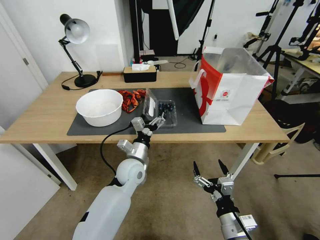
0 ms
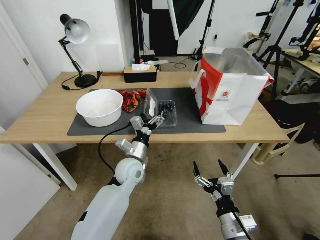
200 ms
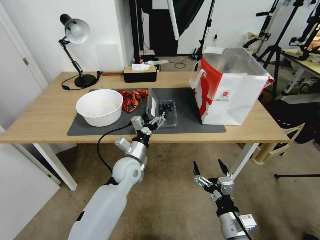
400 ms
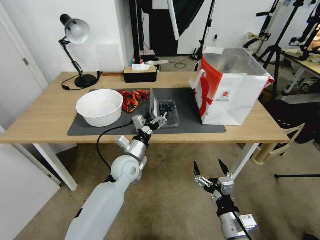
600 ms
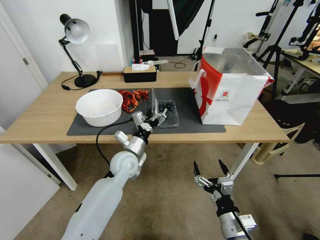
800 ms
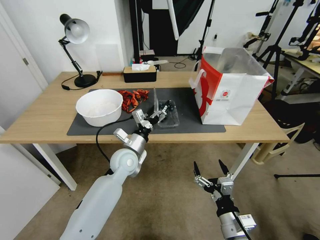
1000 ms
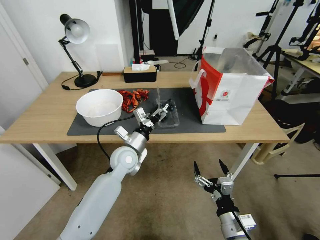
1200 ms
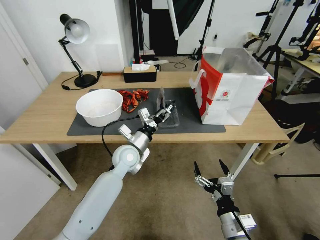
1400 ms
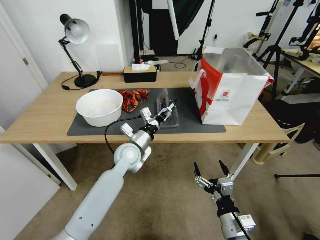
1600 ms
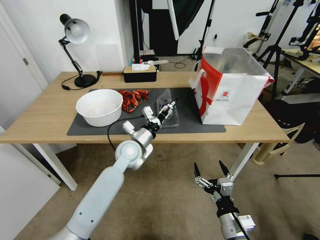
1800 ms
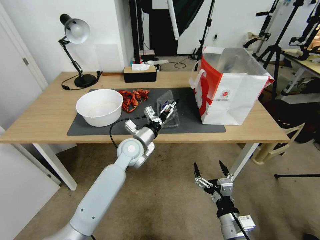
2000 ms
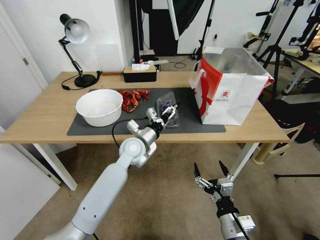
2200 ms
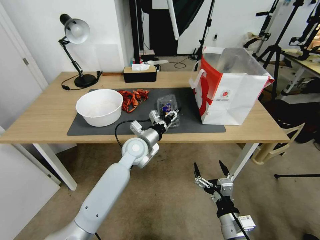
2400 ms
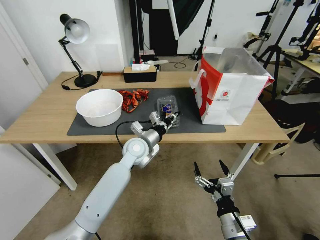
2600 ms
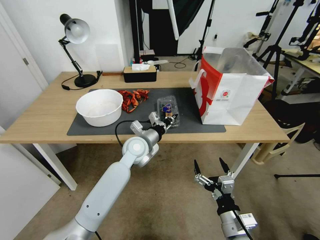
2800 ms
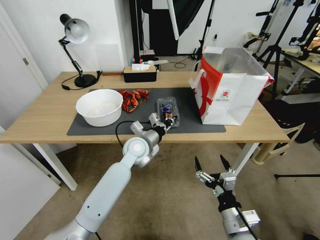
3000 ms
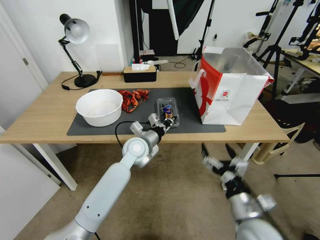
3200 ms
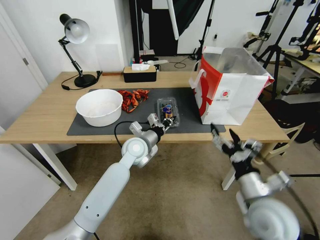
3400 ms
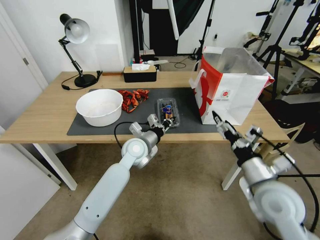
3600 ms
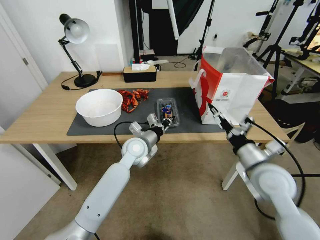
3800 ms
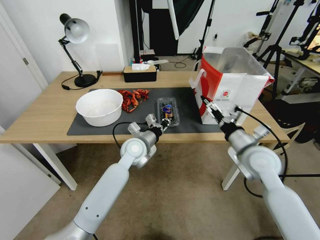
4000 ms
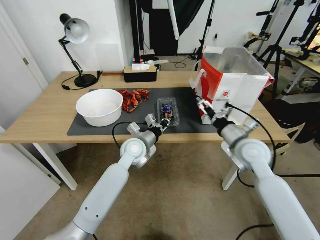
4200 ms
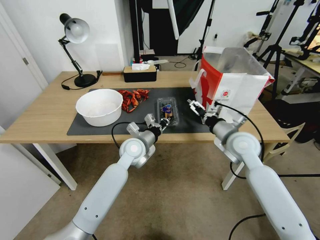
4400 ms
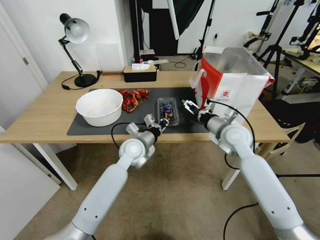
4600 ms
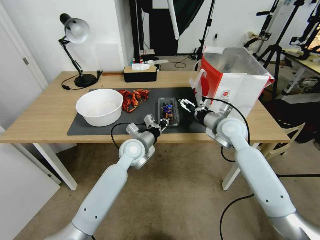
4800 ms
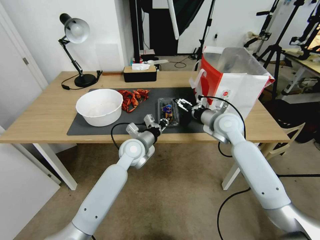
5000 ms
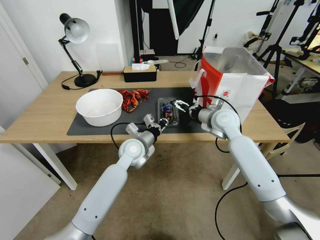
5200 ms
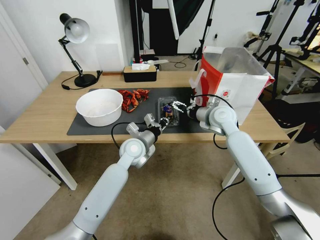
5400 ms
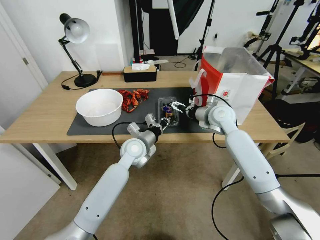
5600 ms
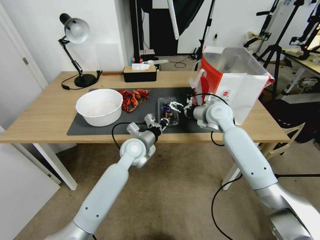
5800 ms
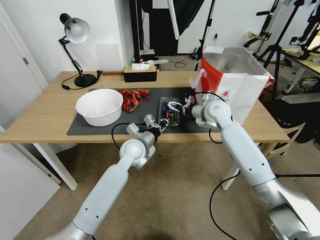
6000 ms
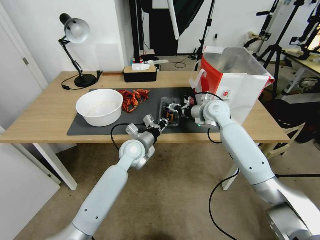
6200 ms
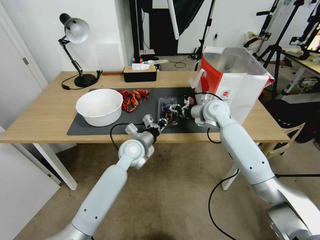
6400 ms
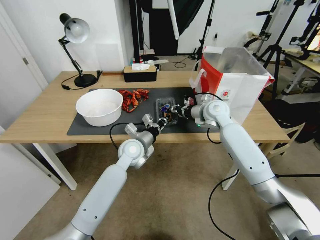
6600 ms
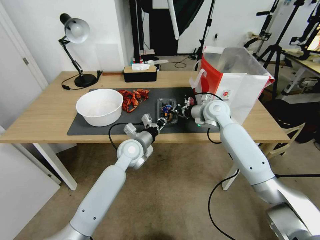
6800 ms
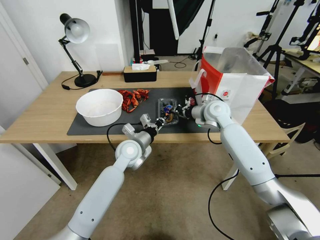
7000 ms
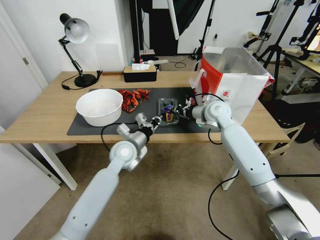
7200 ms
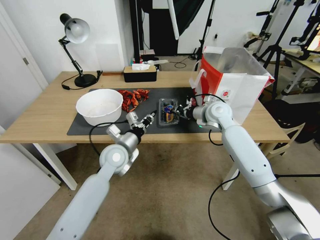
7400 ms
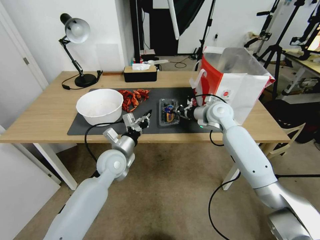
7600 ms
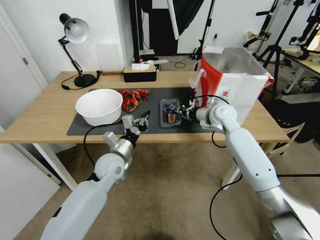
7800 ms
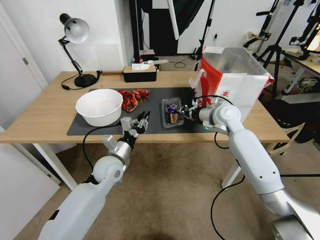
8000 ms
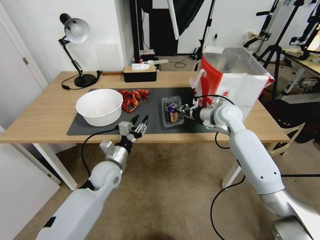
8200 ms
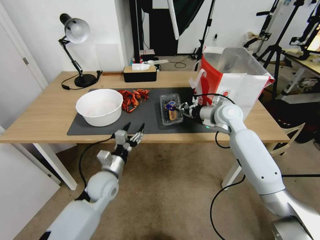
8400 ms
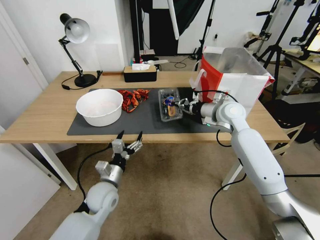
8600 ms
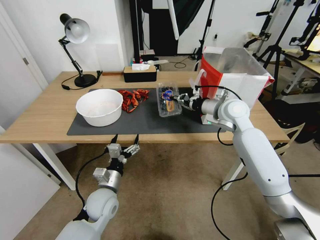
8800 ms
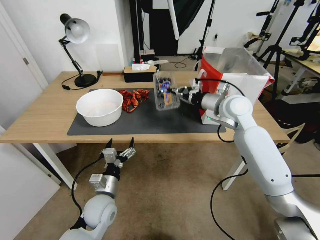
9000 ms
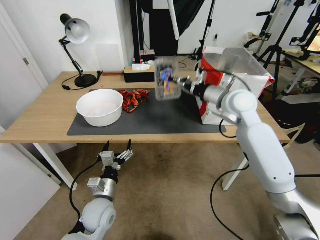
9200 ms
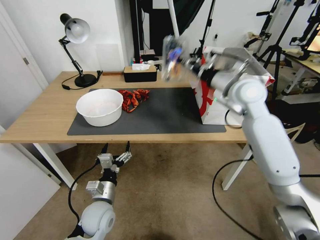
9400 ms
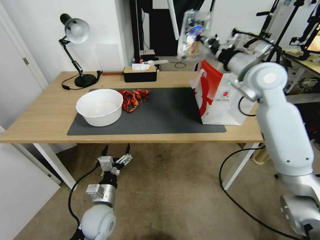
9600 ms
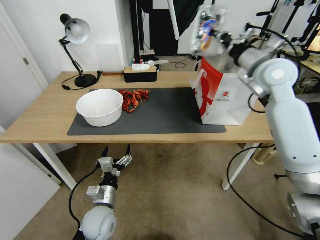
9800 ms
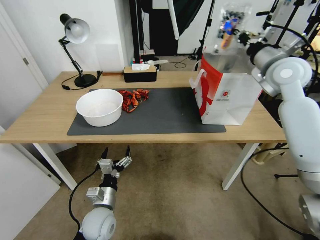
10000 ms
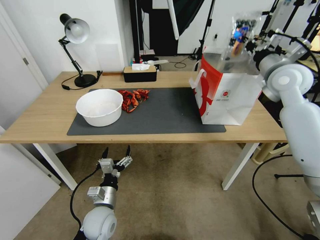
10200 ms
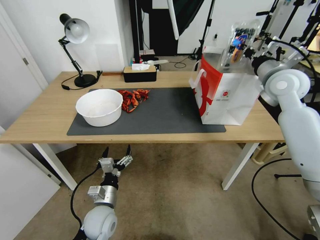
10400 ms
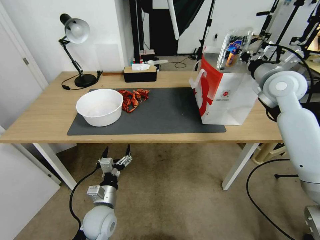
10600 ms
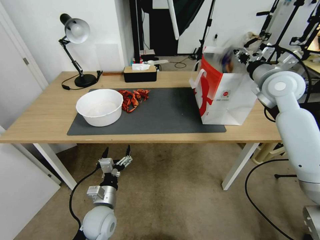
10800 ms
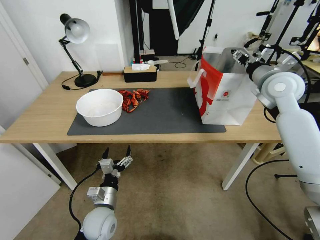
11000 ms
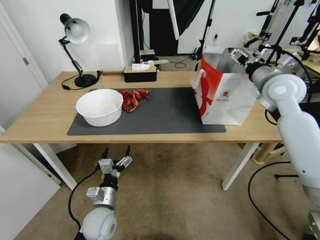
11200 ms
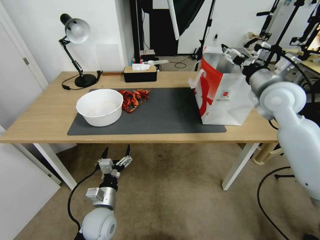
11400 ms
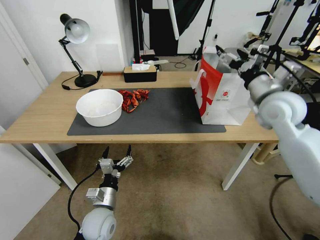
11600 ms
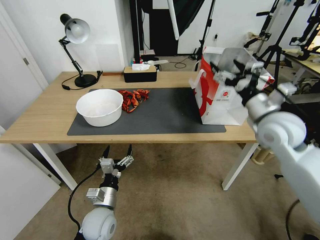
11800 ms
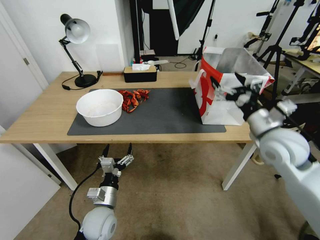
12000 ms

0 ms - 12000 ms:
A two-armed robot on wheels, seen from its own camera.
Task of the whole recording: Close the takeout container lid, then place the container into the takeout bag.
0 ms - 1600 ms: The left gripper shifts by roughly 5 cm.
1600 ms - 3000 ms: The left gripper closes.
3000 ms - 4400 ms: The right gripper heads forward and upward, covering some 30 cm.
4400 ms - 6000 ms: The right gripper moves forward, about 15 cm.
6000 ms - 7600 ms: The left gripper changes place by roughly 5 cm. The right gripper closes its fingers.
7600 ms - 9000 ms: The right gripper heads upward, covering roughly 5 cm. The left gripper heads backward and downward, covering about 15 cm, and opens up.
9000 ms - 10400 ms: The right gripper heads to the right and upward, covering some 15 cm.
10400 ms - 12000 ms: The right gripper is displaced backward and downward by approximately 20 cm, and opens its fingers.

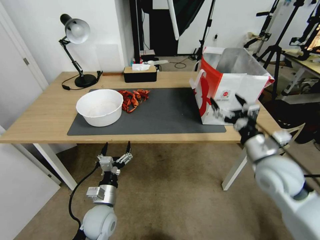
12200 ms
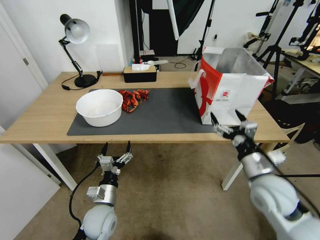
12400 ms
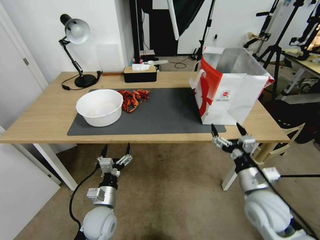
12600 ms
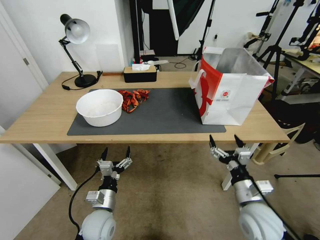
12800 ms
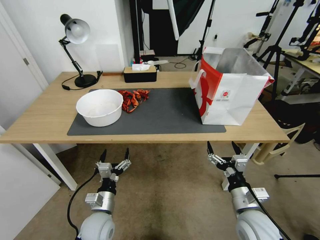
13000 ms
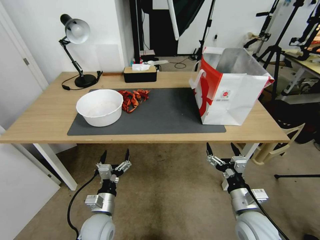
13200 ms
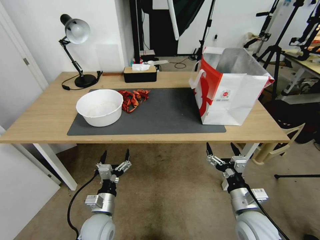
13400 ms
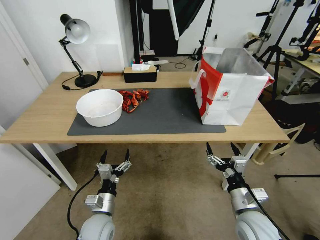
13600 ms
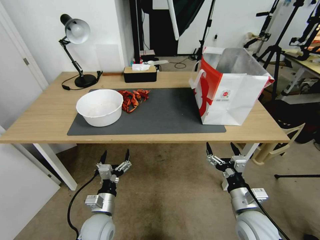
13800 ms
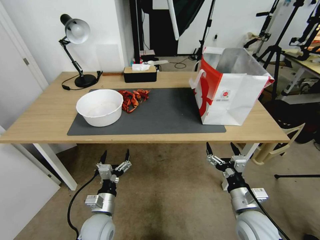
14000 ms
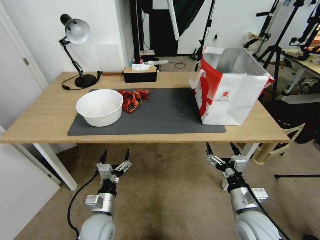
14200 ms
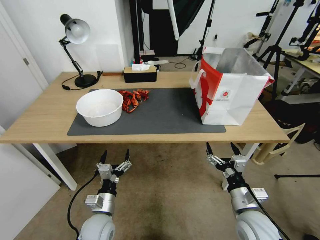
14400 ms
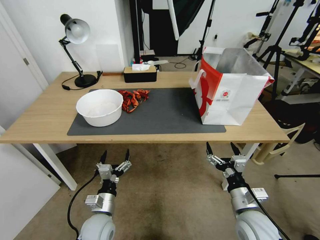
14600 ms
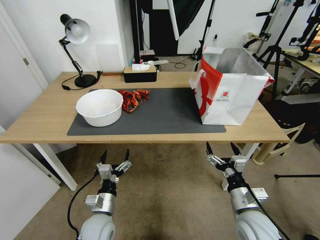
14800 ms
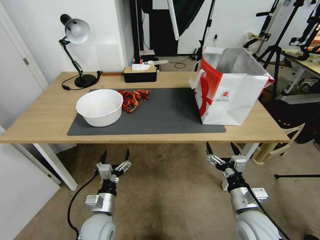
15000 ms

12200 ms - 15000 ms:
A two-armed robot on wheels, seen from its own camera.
Task of the whole recording: Close the takeout container lid, then place the container into the takeout bag.
12200 ms - 13600 ms: The right gripper is displaced downward and backward by some 15 cm.
13600 ms - 15000 ms: Both grippers stay about where they are.

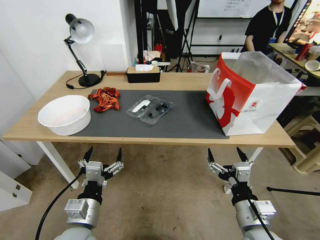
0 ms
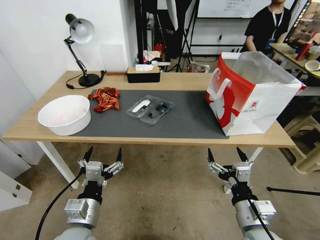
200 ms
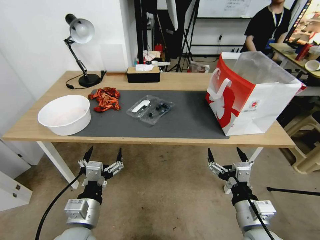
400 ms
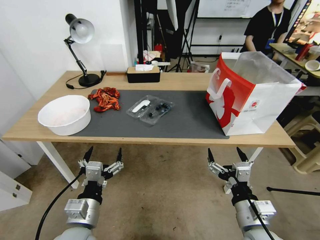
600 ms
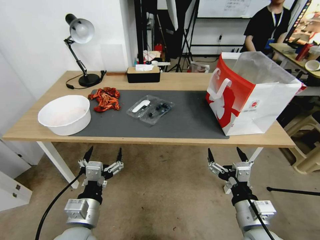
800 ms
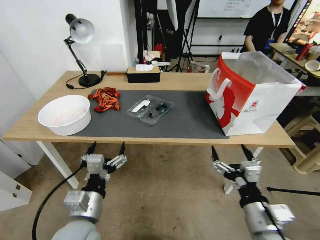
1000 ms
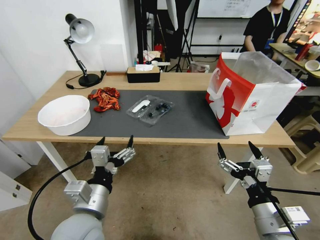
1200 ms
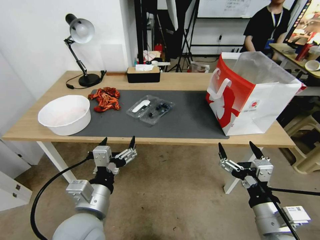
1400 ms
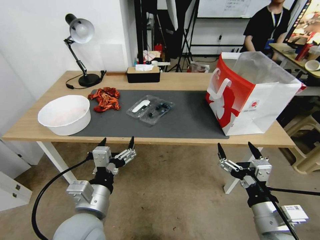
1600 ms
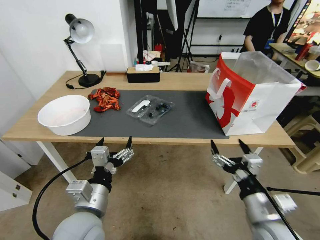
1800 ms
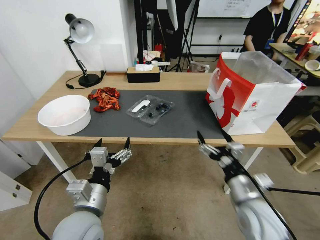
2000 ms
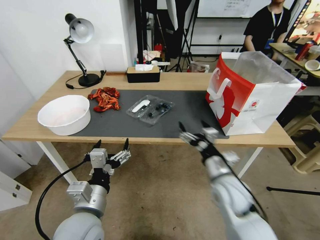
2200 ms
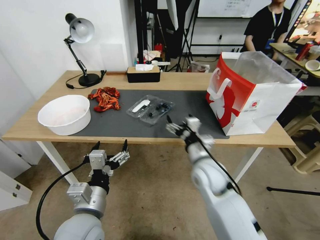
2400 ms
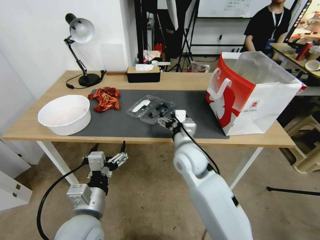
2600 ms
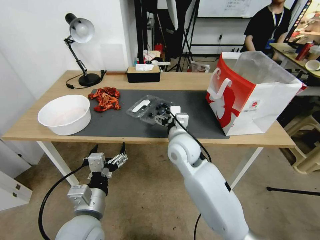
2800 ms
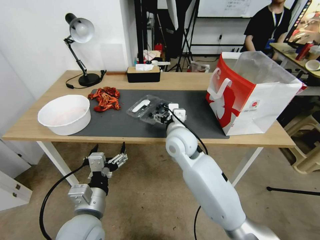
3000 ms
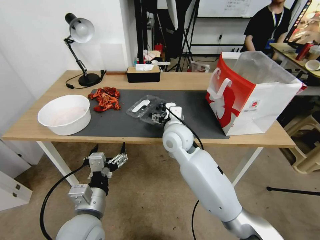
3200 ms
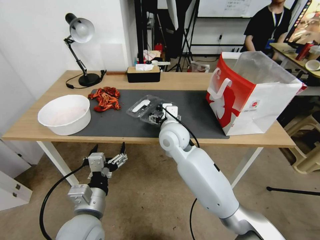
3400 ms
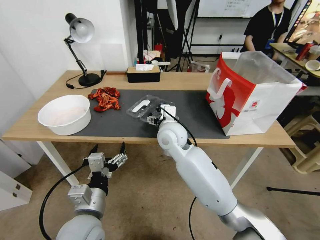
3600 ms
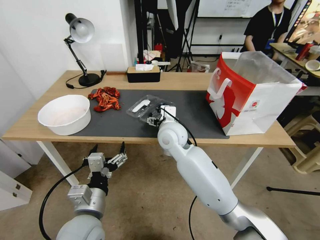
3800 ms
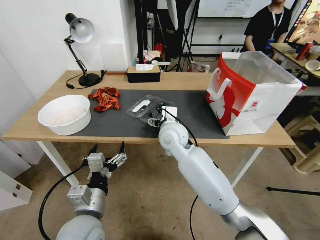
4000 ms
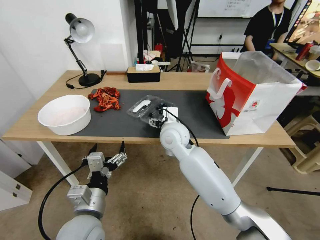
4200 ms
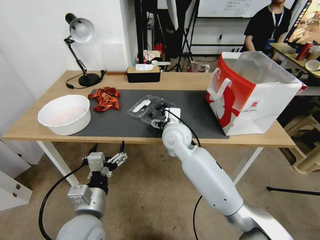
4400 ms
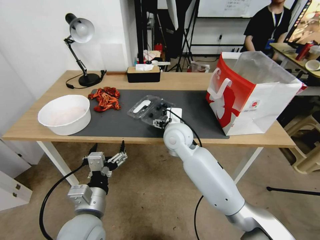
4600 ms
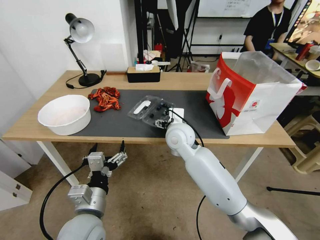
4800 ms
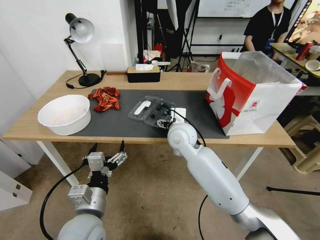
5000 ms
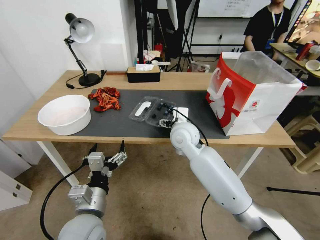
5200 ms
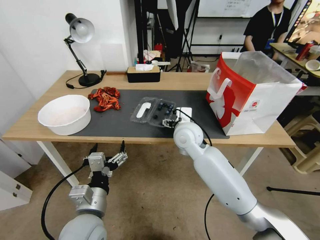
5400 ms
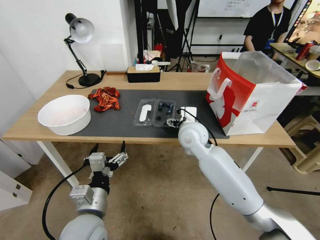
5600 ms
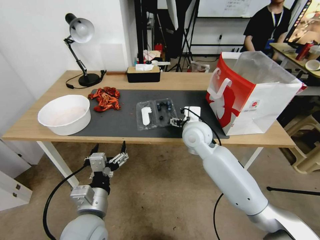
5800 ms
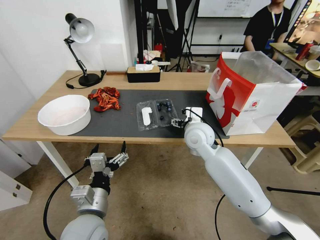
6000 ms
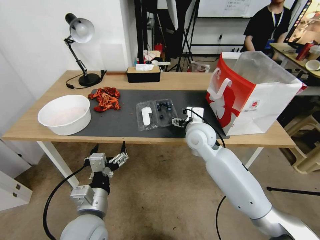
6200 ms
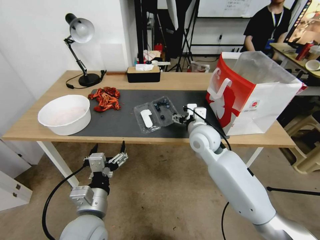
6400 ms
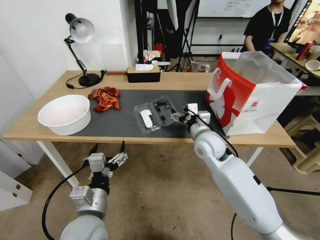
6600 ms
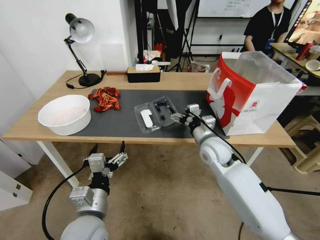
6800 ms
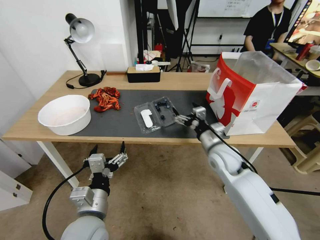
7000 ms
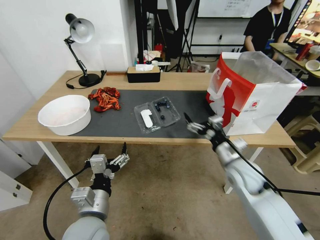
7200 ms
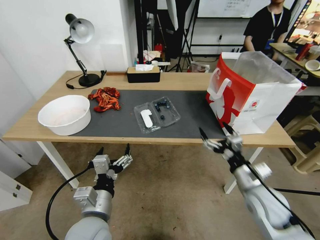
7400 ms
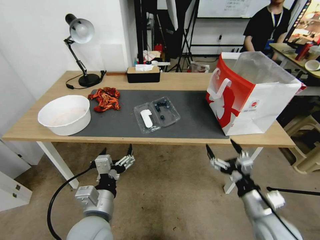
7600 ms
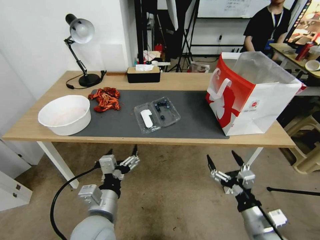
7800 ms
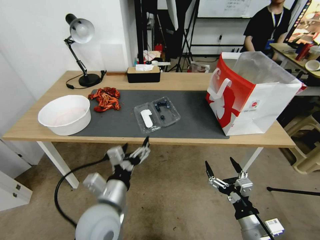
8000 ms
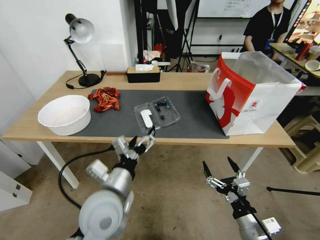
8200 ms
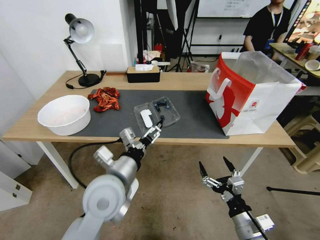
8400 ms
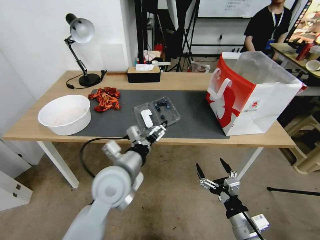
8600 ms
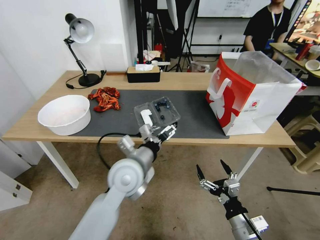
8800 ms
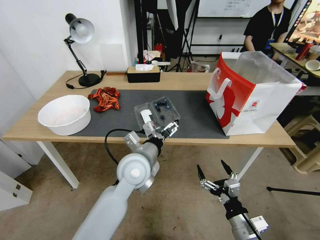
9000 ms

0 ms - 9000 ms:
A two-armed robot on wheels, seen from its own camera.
Task of the whole recording: Close the takeout container lid, then place the container into the takeout bag.
1600 ms - 3000 ms: The right gripper is displaced forward and to the left by approximately 35 cm.
3000 ms - 4400 ms: The grippers stay close to where they were, moving slightly.
4400 ms - 6000 ms: The right gripper travels to the right by approximately 10 cm.
6000 ms - 7600 ms: The right gripper goes some 30 cm backward, to the right and downward.
7600 ms - 9000 ms: The right gripper heads downward, covering roughly 5 cm, while the left gripper heads forward and to the right, covering some 20 cm.
